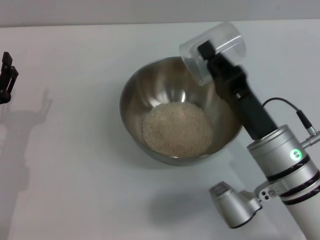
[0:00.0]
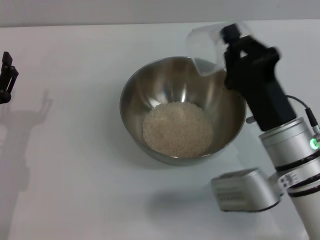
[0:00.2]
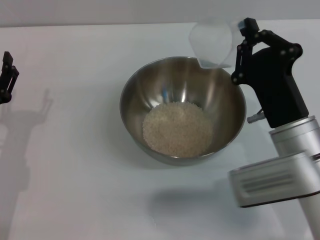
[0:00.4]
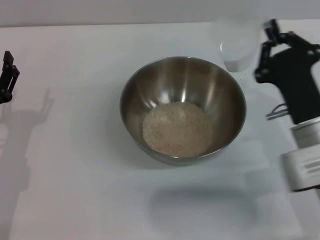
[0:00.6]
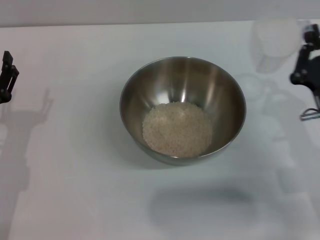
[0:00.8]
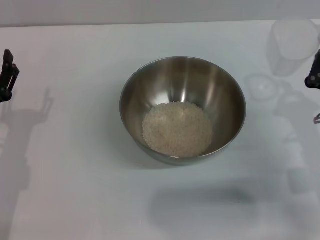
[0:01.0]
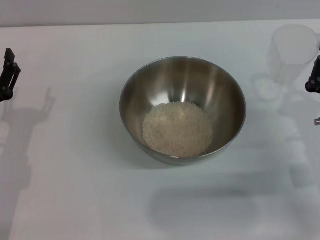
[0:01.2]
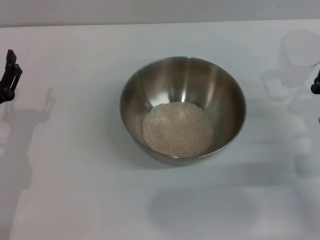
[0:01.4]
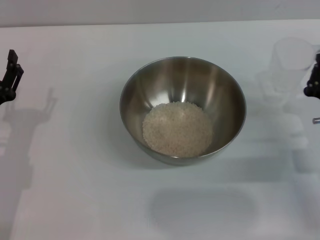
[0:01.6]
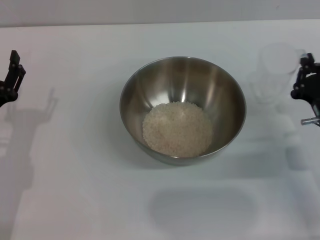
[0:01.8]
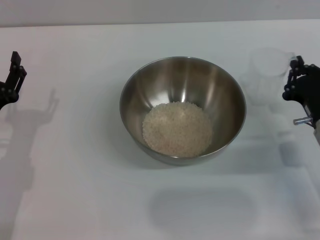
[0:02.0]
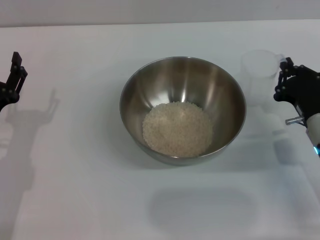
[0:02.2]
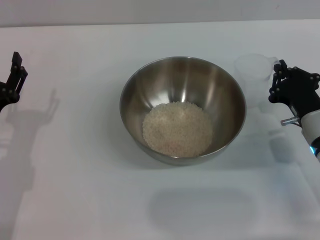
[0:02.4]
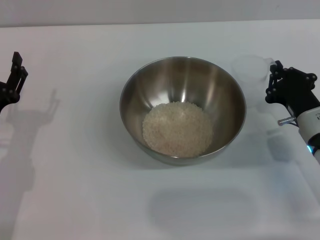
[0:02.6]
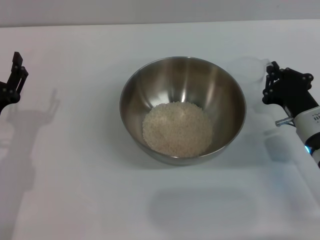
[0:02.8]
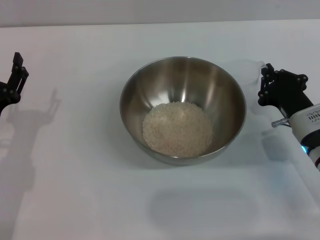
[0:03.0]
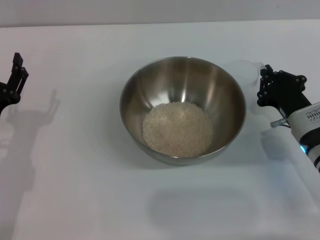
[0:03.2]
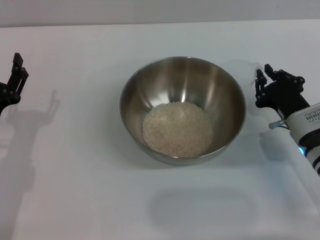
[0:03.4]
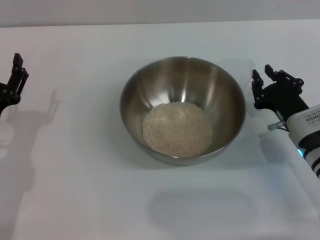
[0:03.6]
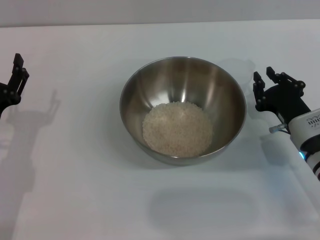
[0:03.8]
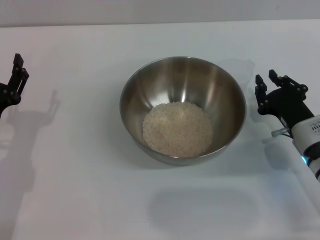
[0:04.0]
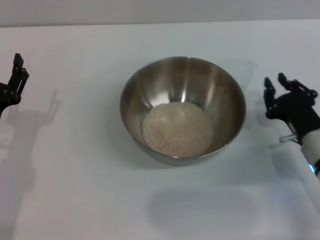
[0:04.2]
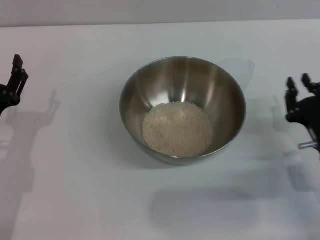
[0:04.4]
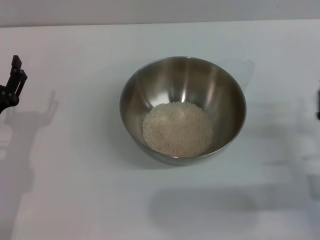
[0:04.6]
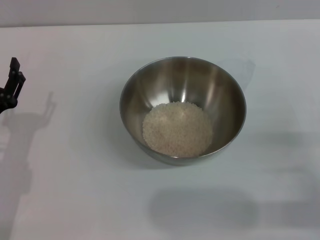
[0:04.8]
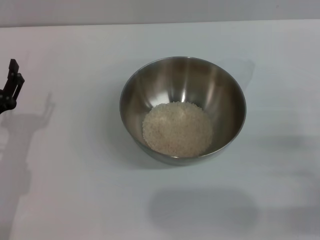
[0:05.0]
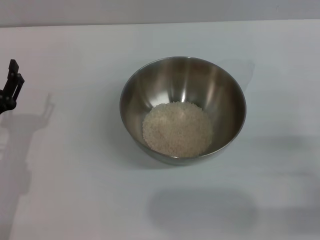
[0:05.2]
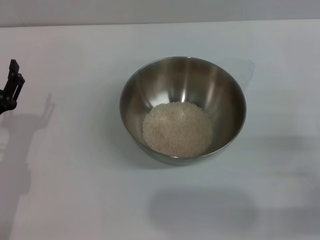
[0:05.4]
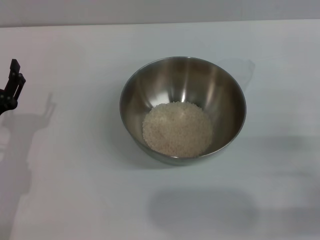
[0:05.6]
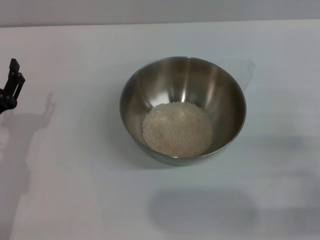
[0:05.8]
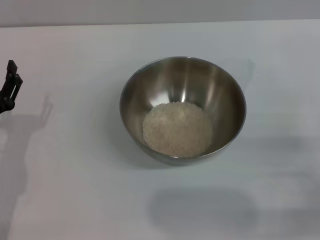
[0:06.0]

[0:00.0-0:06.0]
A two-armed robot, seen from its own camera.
Task of the whole recording: Place the bowl in the middle of the table with one hand and pour the rice from the grain cup into it with the other hand.
Step, 0:00.8 to 0:04.2: Place the cup on the table with the right gripper.
0:00.0 to 0:01.6: The right gripper travels to the right by about 15 cm.
0:01.6 to 0:03.0: The grippers make only small movements.
0:03.0 to 0:04.4: The right gripper heads backward, covering about 5 cm.
0:04.4 to 0:06.0: The right gripper heads backward and to the right, covering approximately 5 cm, and opens.

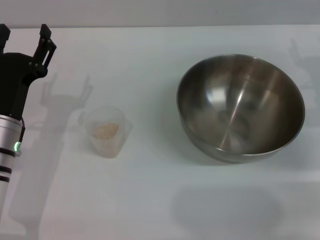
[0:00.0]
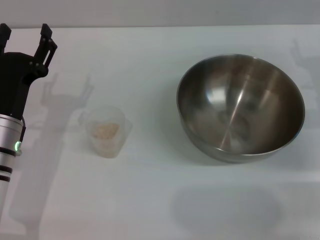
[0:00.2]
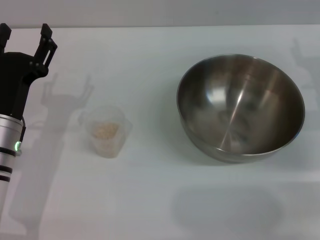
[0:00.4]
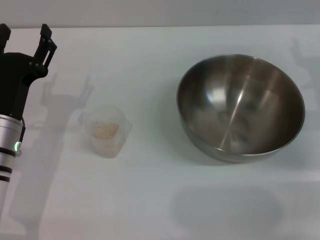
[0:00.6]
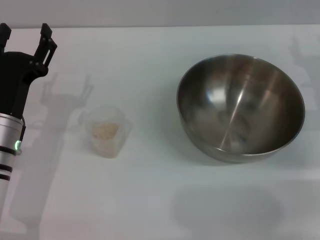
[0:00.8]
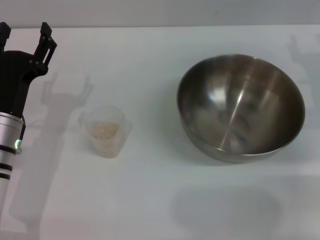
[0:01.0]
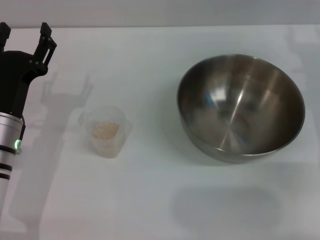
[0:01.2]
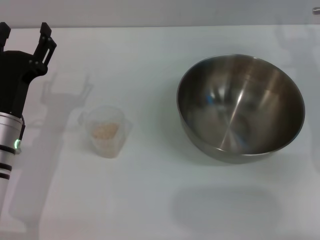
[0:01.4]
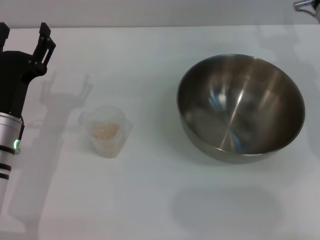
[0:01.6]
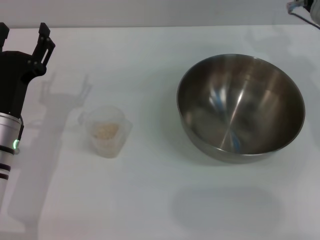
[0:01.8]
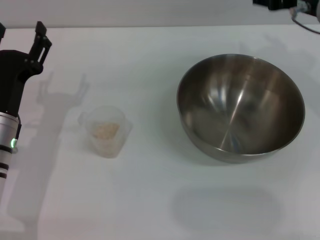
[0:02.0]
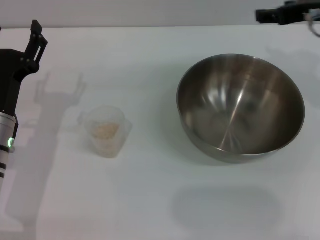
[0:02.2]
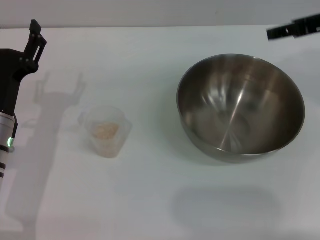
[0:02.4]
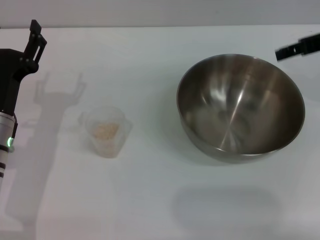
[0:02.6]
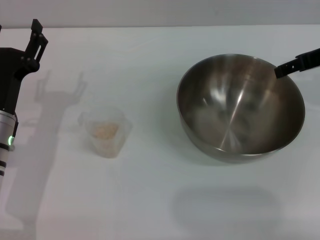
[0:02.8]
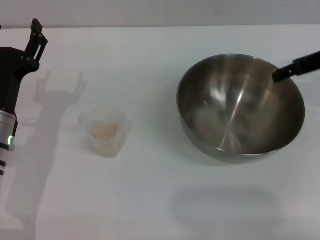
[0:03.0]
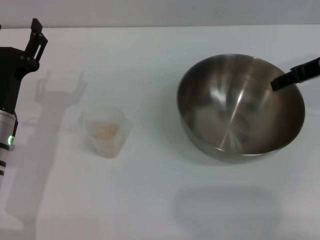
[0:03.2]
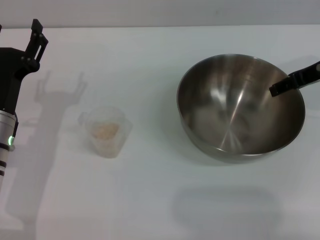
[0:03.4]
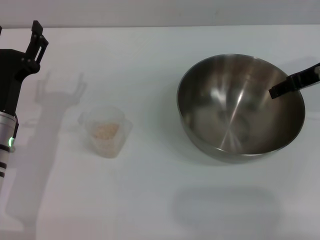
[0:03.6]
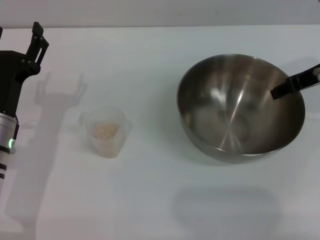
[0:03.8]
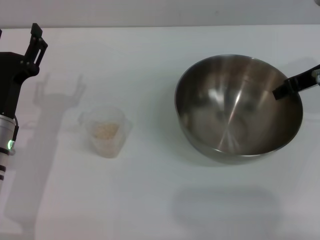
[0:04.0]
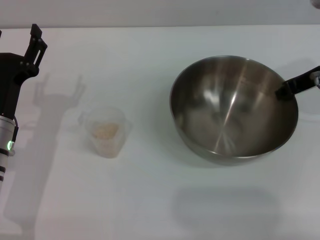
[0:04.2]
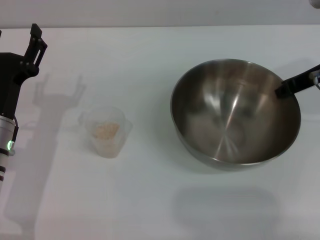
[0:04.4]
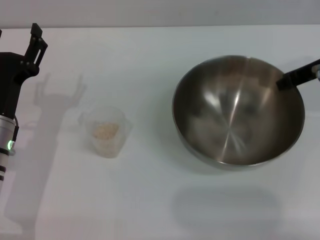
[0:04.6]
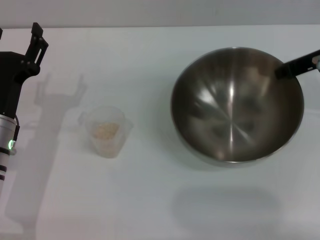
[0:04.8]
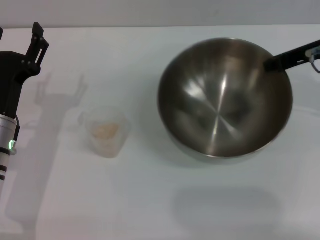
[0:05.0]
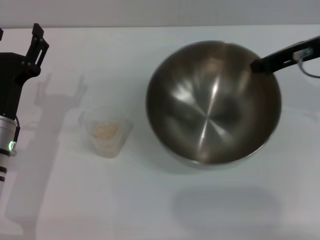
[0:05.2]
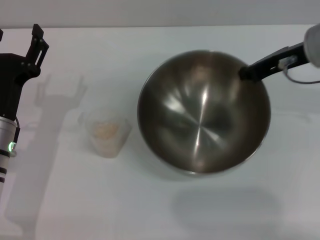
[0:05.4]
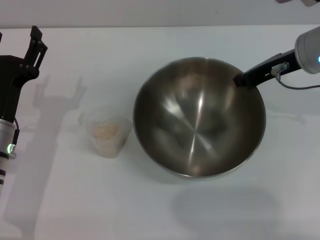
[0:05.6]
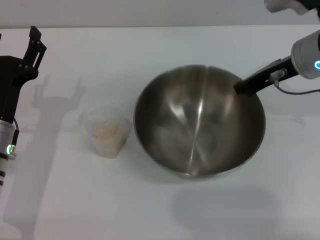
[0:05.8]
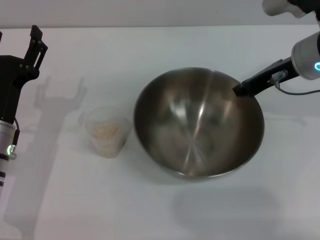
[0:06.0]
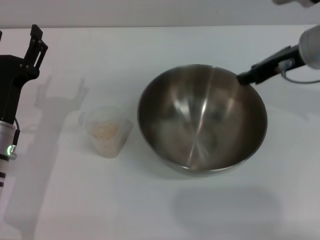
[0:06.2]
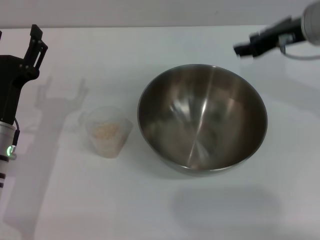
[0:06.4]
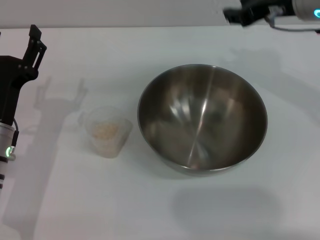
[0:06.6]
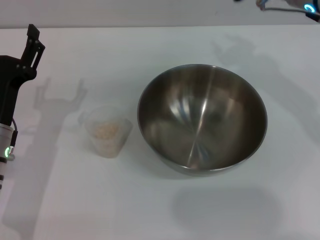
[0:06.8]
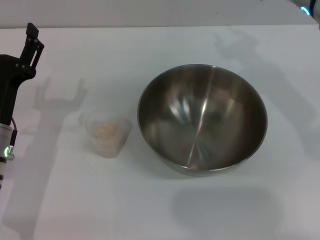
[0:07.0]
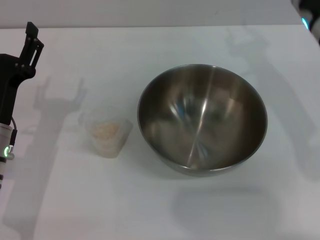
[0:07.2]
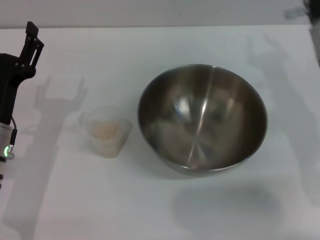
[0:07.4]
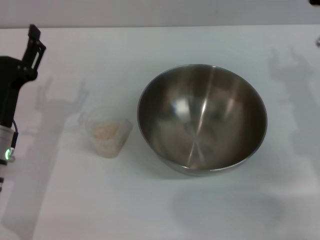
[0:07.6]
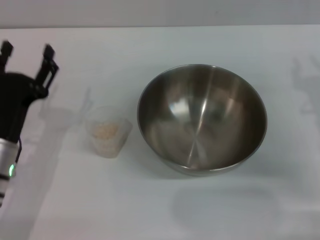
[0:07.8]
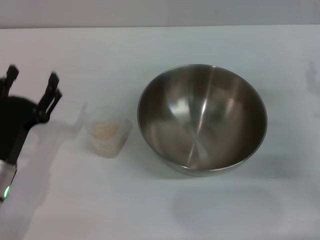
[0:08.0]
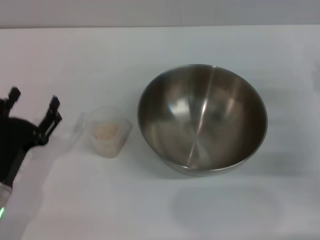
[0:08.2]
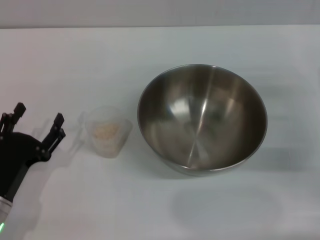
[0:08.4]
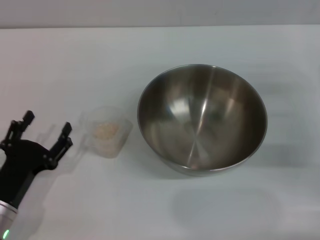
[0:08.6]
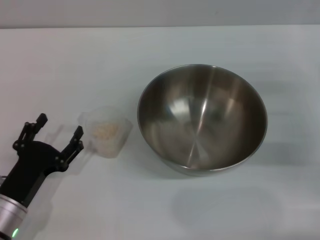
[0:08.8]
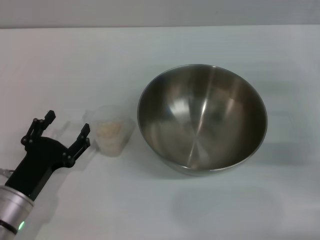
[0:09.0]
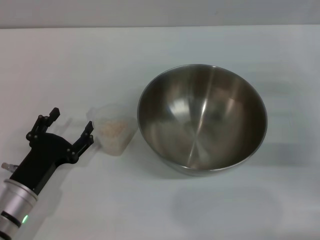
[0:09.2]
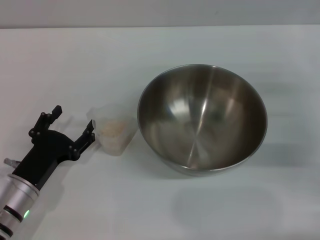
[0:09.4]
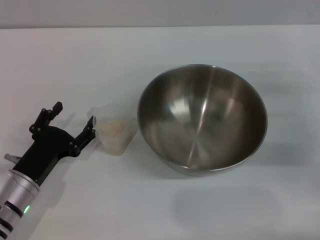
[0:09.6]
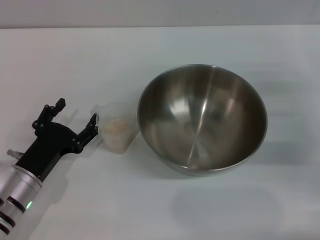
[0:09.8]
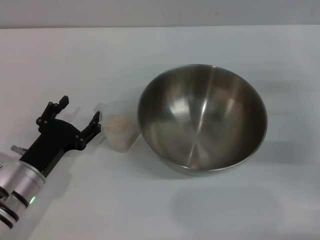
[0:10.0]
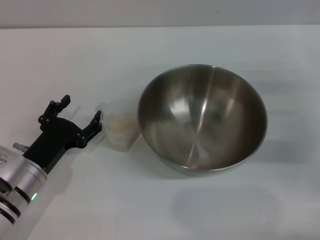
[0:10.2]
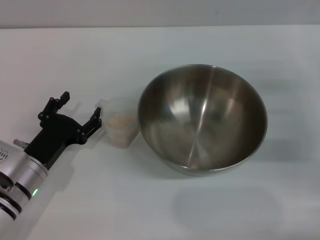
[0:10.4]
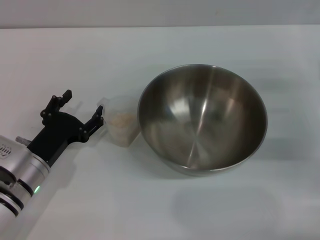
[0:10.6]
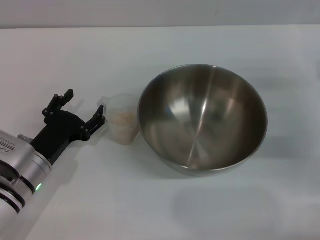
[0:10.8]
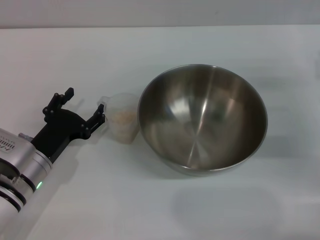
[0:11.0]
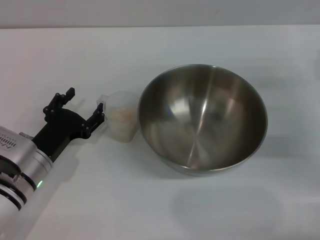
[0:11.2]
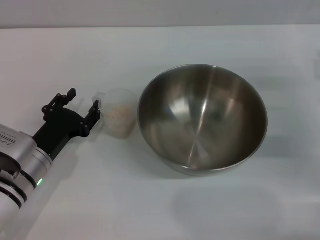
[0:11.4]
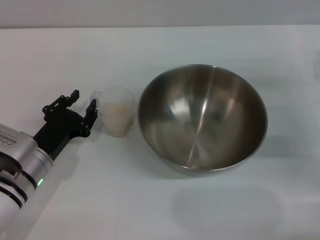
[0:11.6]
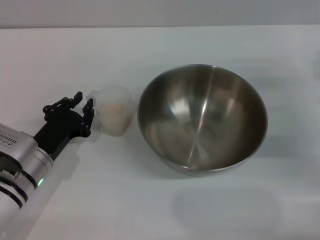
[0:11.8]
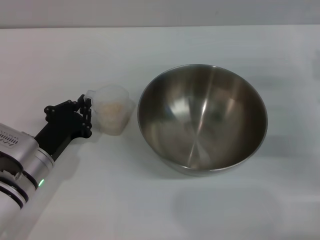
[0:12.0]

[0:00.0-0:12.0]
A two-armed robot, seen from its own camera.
Task of the whole recording: Place the bowl in the middle of the table with one hand and pour the rice from the grain cup into it with the other hand.
Step, 0:00.0 to 0:04.8: Pick up the bowl with the right gripper.
Step, 0:05.0 to 0:06.4: Place the bowl in the center of view with the right gripper.
0:00.0 to 0:01.6: The right gripper shifts roughly 10 cm upward, forward and to the left.
0:01.6 to 0:03.0: The right gripper ends up some 5 cm from where it was.
0:03.0 to 0:04.4: The right gripper closes up.
0:04.4 to 0:06.0: The right gripper is displaced to the left by about 5 cm.
0:06.0 to 0:07.6: The right gripper goes about 10 cm backward and downward, and opens its fingers.
0:07.6 to 0:09.0: The right gripper heads to the right, covering roughly 10 cm, while the left gripper shifts some 10 cm backward and downward.
0:09.0 to 0:10.4: The left gripper travels forward by approximately 5 cm.
0:10.4 to 0:12.0: The left gripper closes.

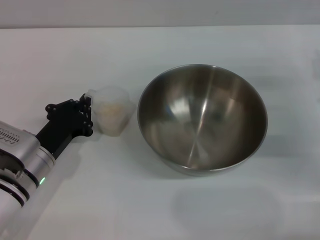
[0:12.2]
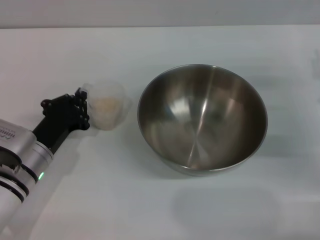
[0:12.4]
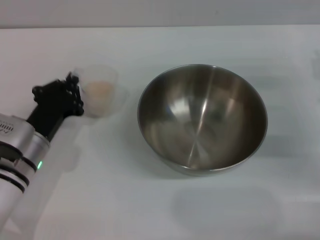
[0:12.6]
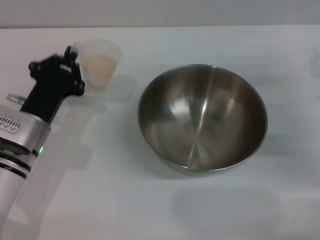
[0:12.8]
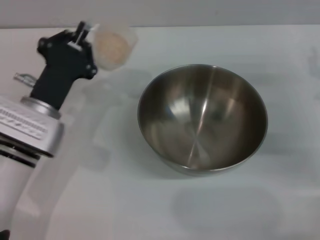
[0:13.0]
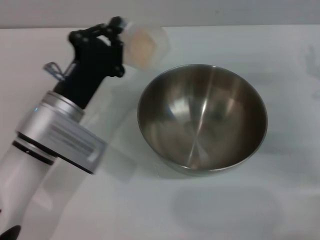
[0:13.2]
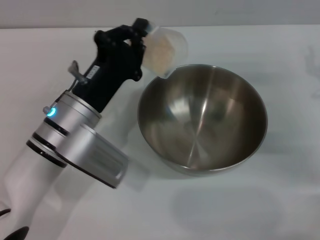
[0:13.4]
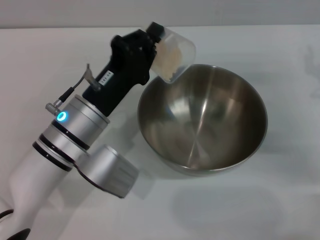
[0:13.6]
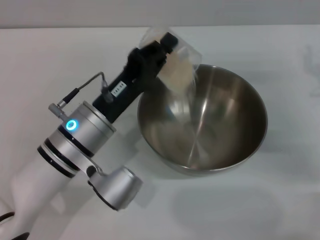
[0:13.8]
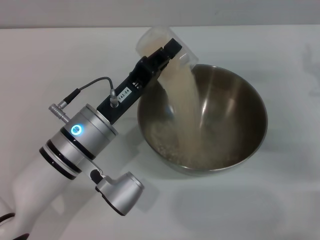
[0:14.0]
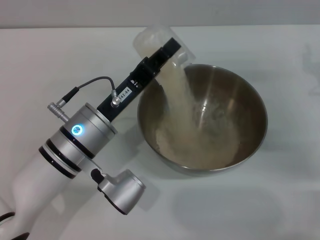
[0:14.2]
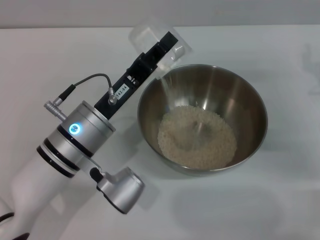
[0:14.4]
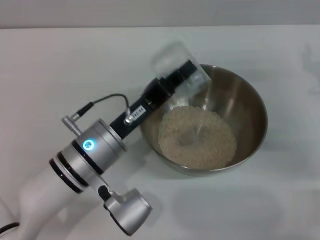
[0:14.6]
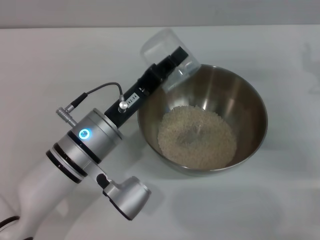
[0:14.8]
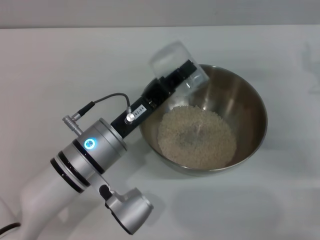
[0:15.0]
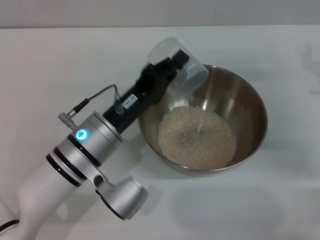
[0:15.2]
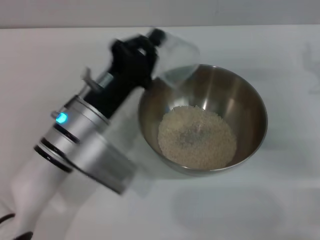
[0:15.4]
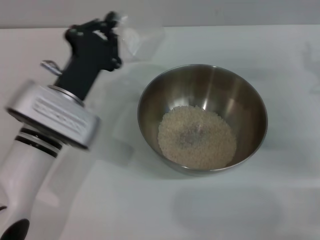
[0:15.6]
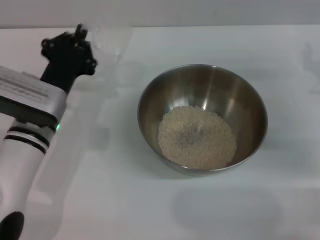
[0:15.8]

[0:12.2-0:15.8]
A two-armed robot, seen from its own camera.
Task of the whole recording: Place the bowl in the middle of the table with one hand and pour the rice from the grain cup into it with the other hand.
Step, 0:12.8 to 0:15.0: Pour the rice from the cup into the bowl with the left gripper.
0:12.2 to 0:14.0: The left gripper goes about 10 cm to the right and upward.
0:14.0 to 0:15.8: The left gripper travels to the left by approximately 5 cm.
